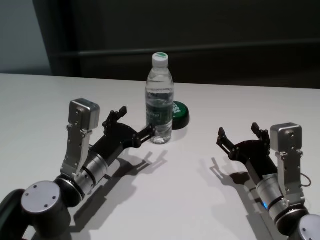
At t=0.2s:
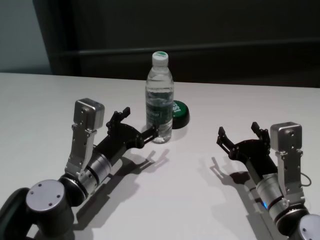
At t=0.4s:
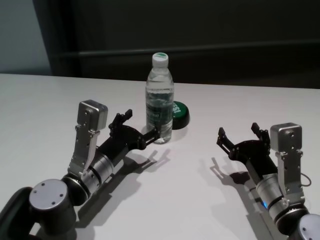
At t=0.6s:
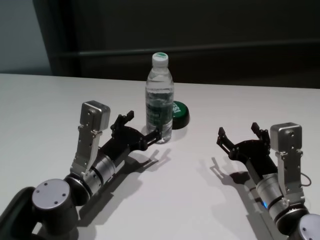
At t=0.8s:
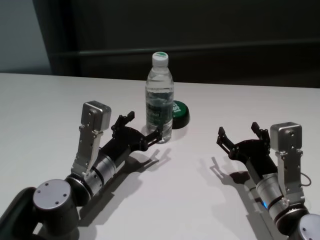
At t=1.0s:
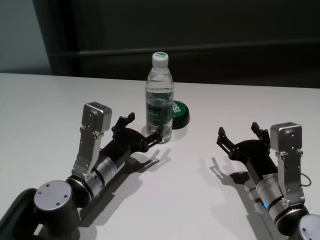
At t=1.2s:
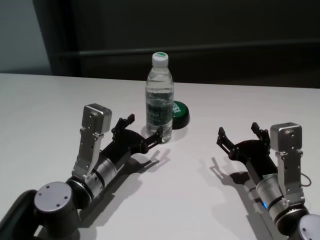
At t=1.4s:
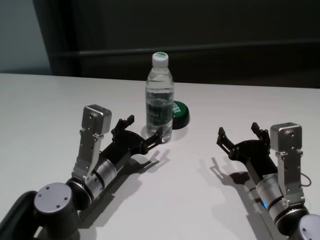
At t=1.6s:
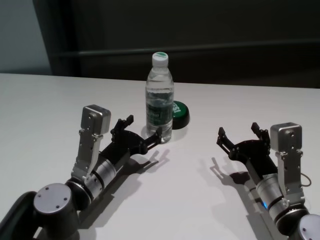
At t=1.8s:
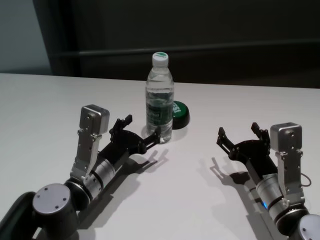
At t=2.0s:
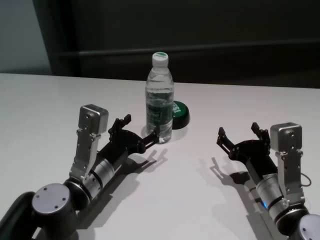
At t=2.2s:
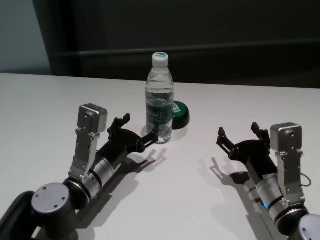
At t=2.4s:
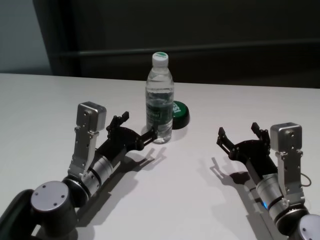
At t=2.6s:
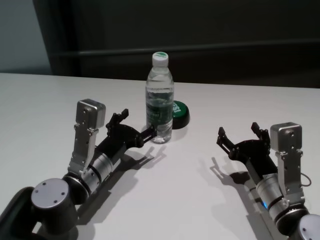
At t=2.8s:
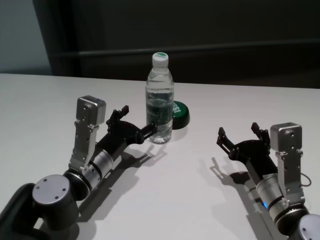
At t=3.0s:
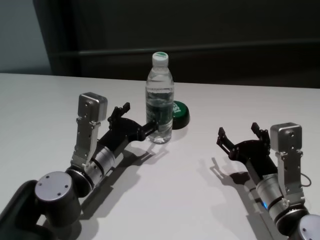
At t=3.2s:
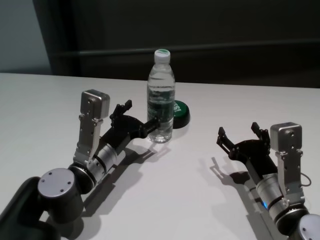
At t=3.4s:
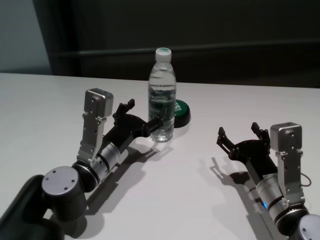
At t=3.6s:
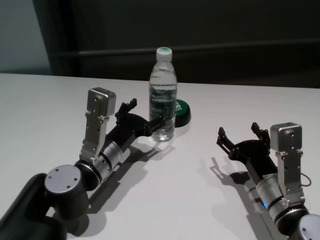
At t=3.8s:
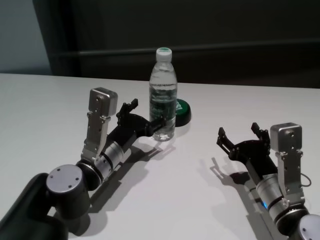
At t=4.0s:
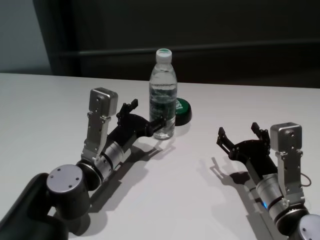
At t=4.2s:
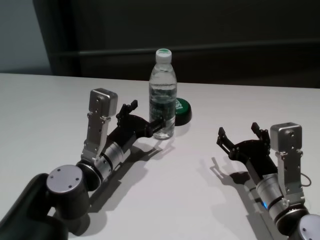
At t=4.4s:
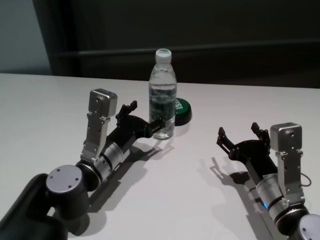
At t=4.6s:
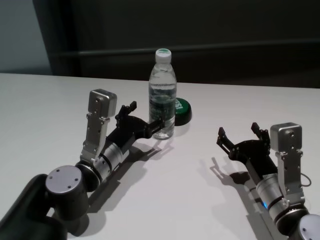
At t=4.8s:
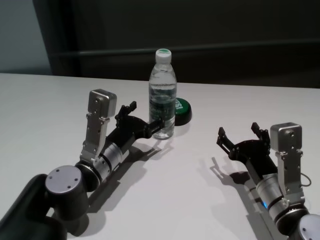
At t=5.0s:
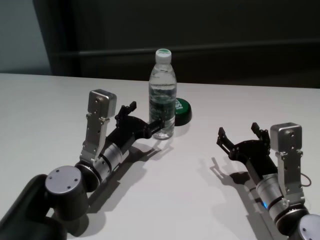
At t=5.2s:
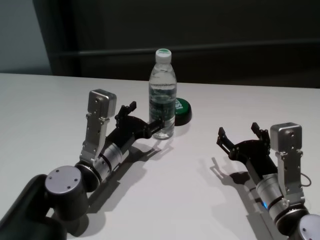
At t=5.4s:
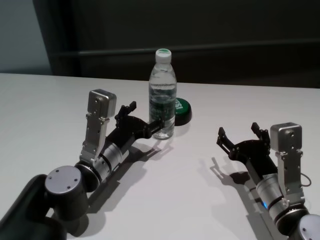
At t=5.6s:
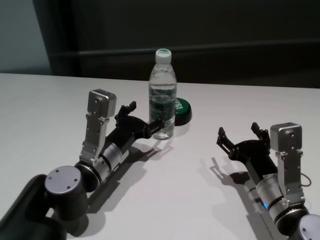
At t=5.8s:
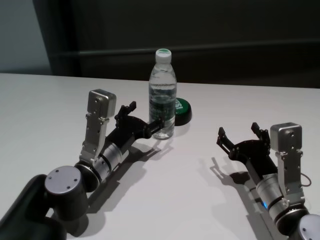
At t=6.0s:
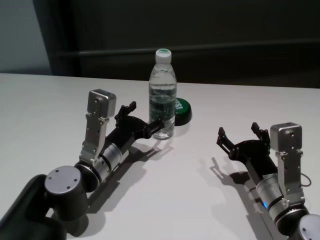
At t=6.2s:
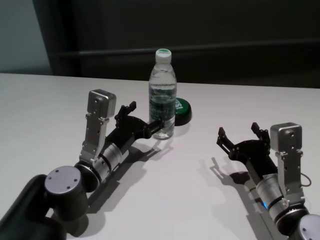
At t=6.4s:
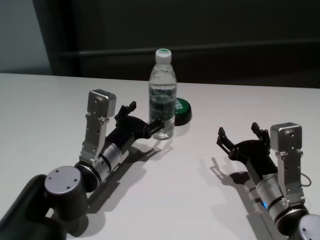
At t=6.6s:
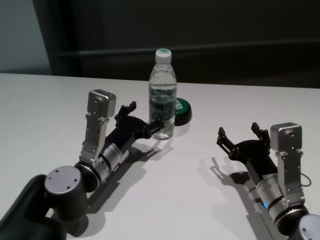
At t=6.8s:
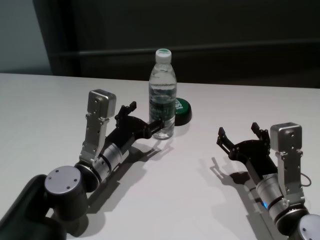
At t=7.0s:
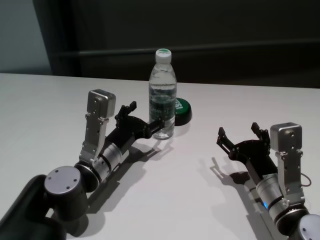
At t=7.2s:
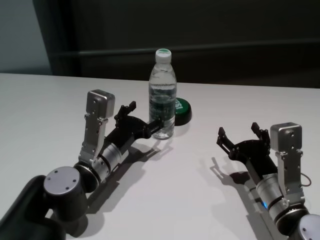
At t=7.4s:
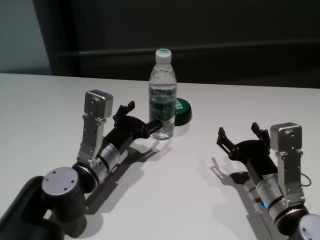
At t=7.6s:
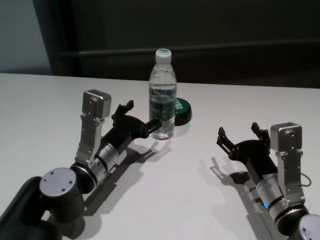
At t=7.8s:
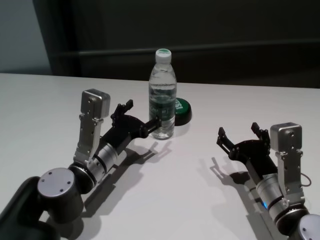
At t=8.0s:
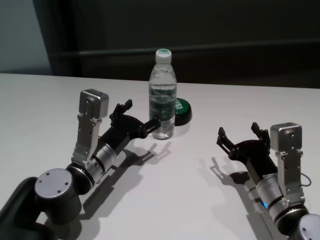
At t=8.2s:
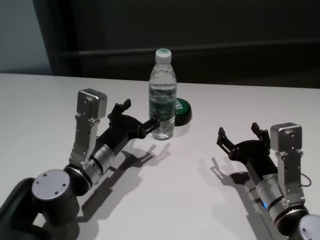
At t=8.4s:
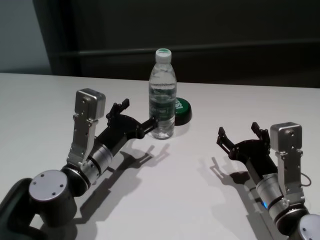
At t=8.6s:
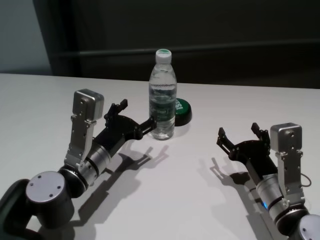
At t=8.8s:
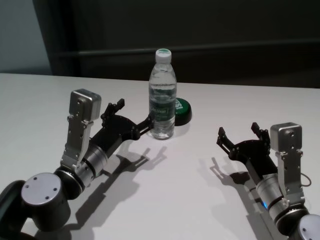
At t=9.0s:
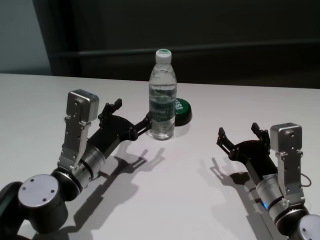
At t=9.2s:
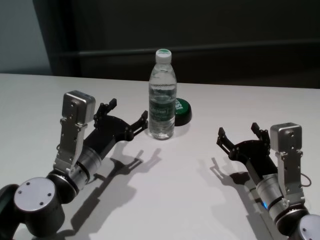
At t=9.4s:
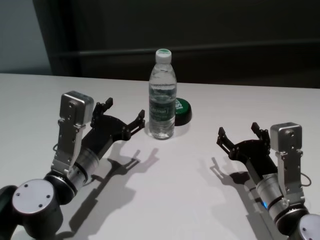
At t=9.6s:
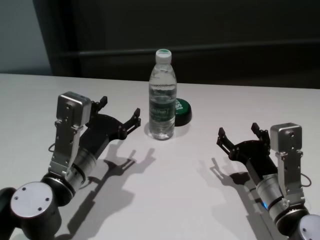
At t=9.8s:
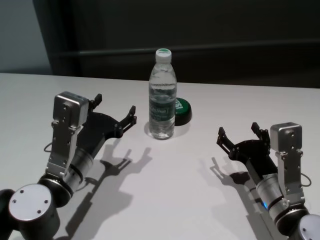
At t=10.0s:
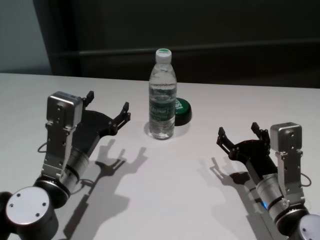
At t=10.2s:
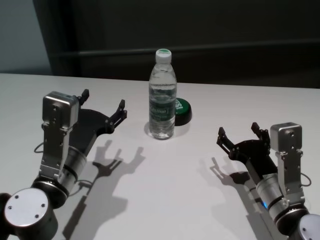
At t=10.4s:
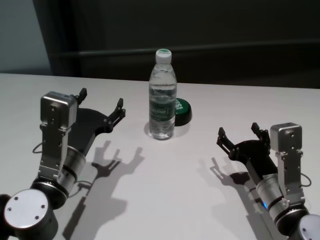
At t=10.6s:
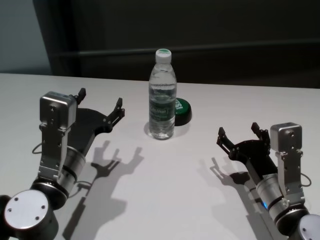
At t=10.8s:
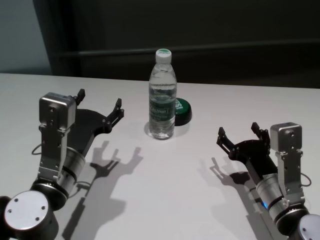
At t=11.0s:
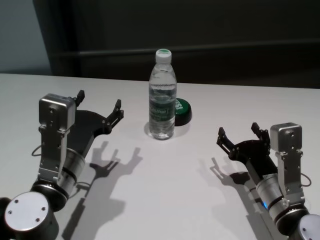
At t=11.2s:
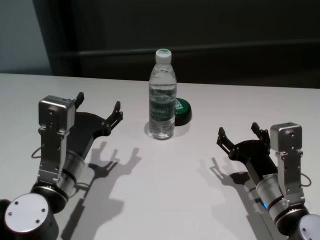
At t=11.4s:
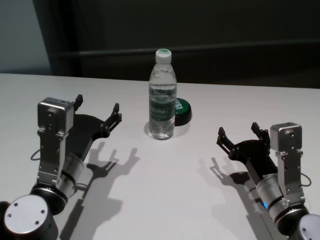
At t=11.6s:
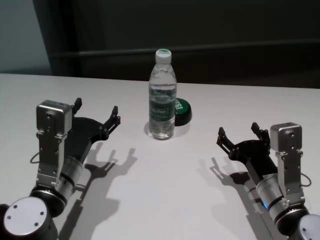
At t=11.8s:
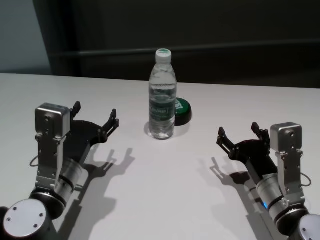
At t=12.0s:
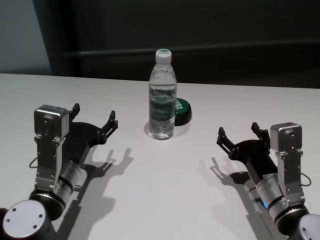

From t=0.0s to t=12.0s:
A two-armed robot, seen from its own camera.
Task of the whole recording: return to a safe position after touching an obstacle with your arm on the white table.
Step, from t=0.0s to t=8.6s: Touch the bottle with left gripper.

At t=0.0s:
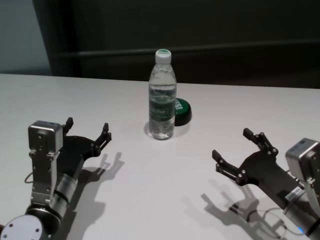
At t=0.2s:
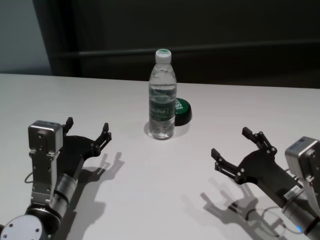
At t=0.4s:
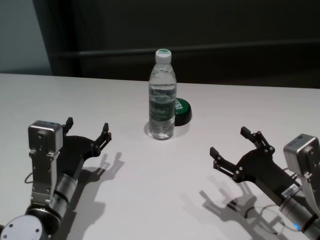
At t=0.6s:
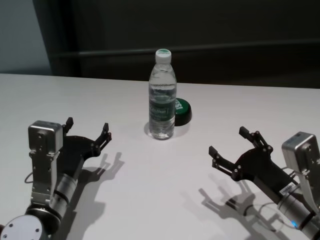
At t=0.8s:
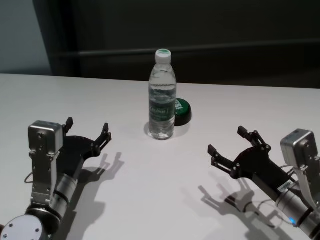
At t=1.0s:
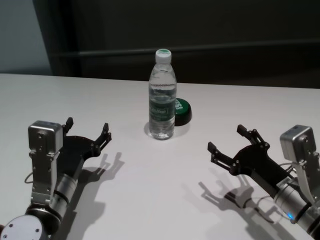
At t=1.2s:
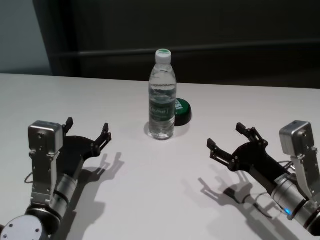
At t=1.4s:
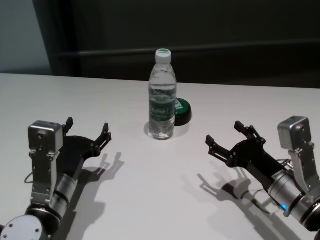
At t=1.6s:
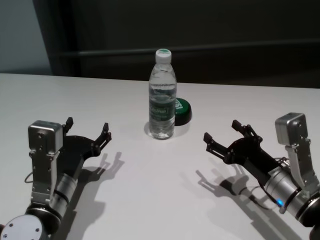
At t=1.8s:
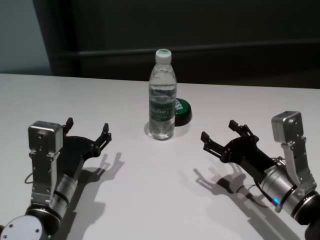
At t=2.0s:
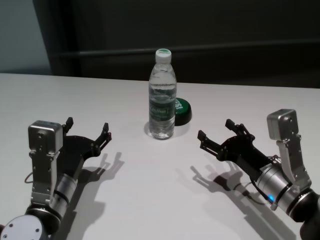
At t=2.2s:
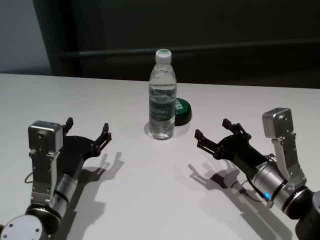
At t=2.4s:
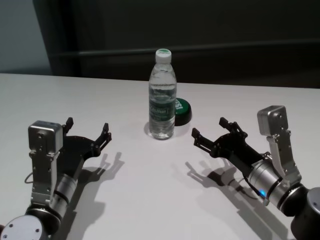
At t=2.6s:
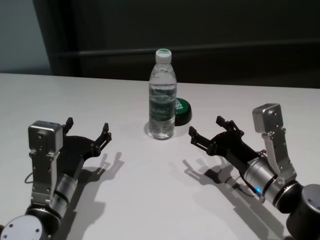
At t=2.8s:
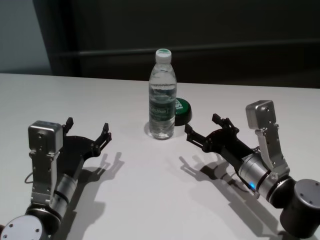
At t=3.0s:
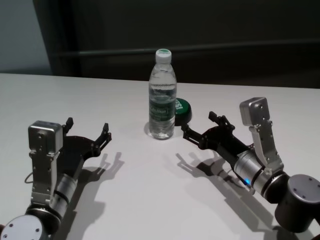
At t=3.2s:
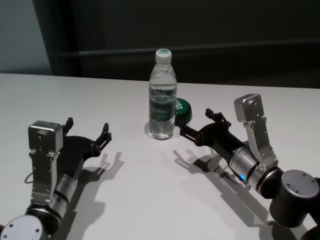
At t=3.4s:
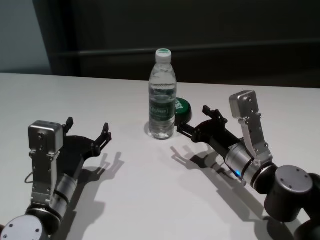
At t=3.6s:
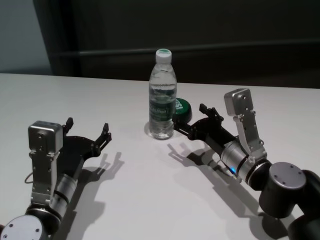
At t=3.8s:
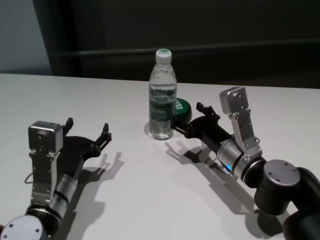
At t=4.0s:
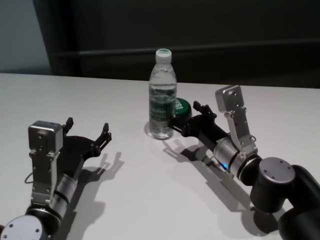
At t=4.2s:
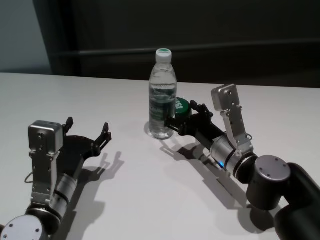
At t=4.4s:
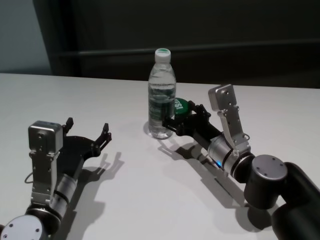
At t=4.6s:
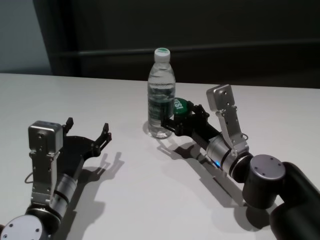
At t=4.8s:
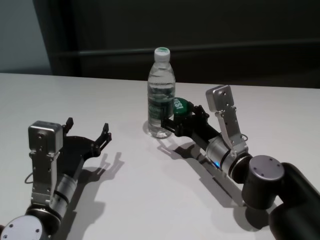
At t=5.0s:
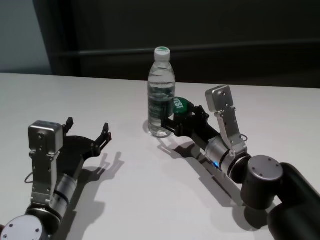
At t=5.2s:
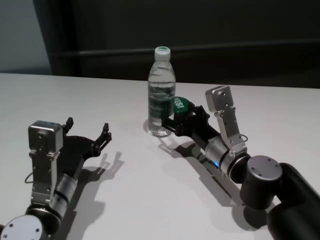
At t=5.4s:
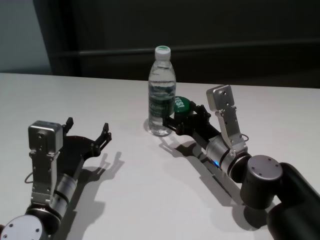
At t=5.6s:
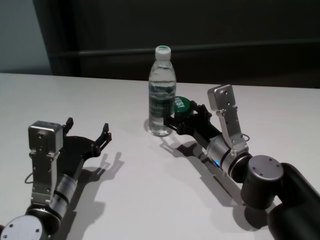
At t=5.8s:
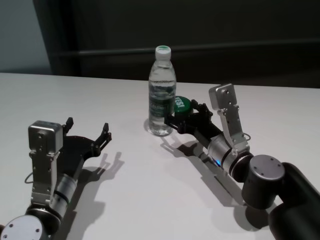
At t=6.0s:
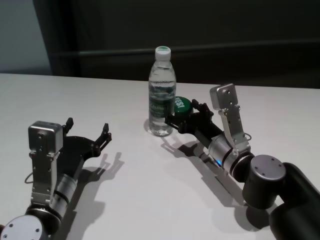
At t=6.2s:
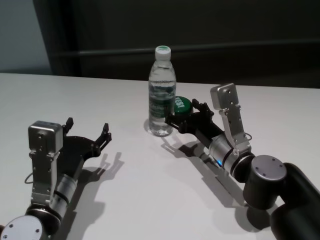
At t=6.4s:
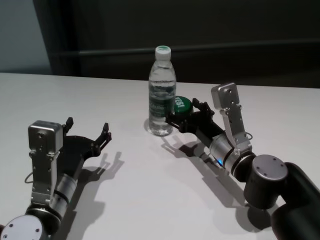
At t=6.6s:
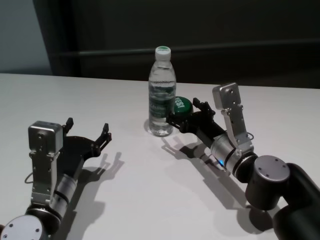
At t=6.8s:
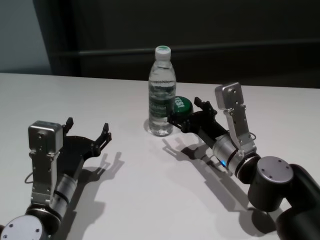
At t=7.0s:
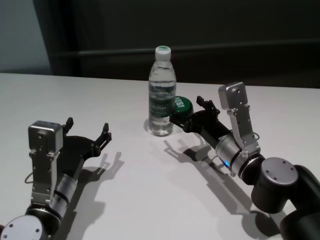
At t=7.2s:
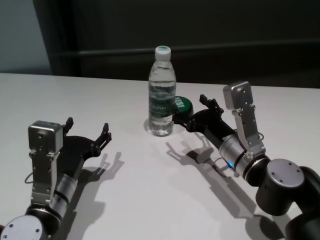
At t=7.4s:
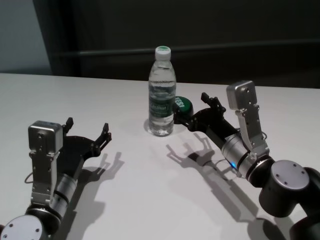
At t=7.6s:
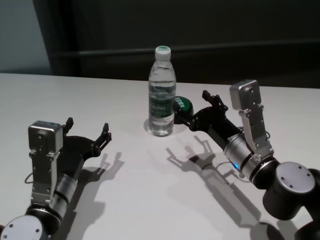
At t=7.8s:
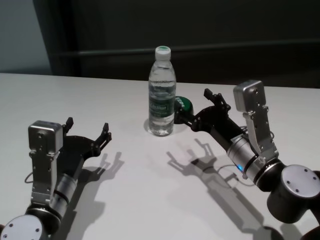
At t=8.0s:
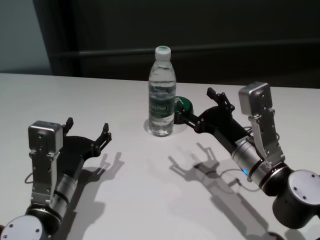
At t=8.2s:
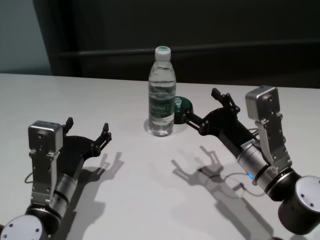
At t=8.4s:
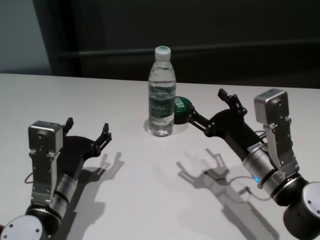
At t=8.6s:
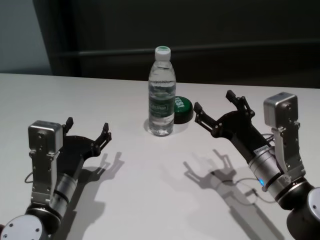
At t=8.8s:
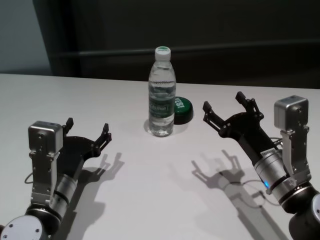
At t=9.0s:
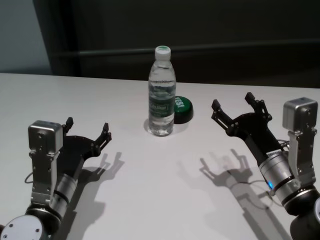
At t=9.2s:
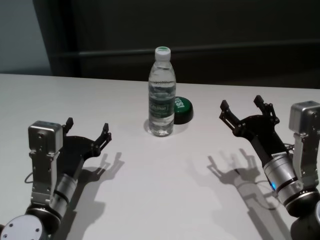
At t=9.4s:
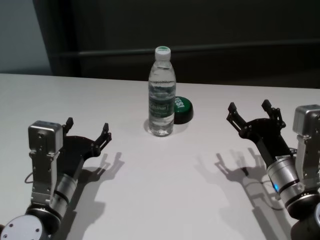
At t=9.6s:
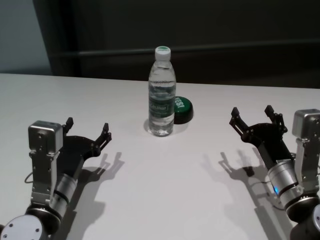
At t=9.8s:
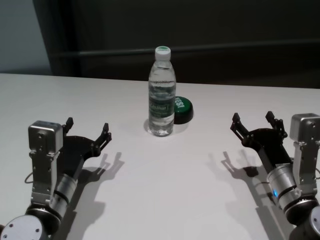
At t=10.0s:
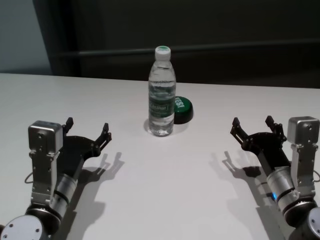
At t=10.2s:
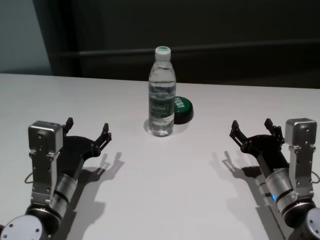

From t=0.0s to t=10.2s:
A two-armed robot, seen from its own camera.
Task of the whole recording: return to a safe position after touching an obstacle with your arm on the white table.
Step, from t=0.0s to t=7.6s: Touch the bottle with right gripper.
